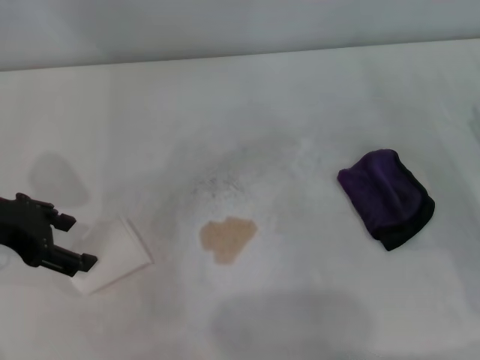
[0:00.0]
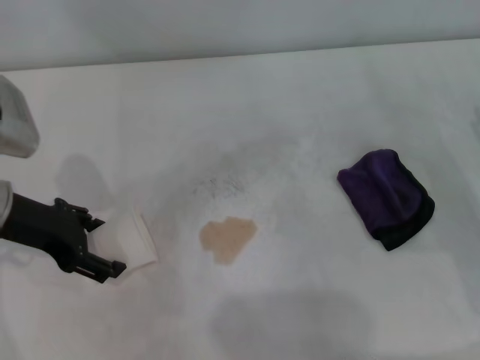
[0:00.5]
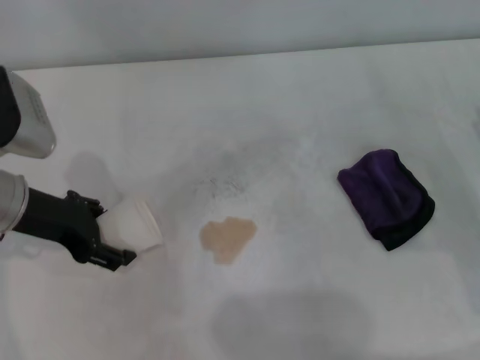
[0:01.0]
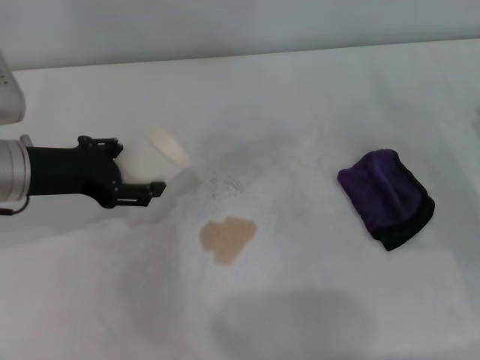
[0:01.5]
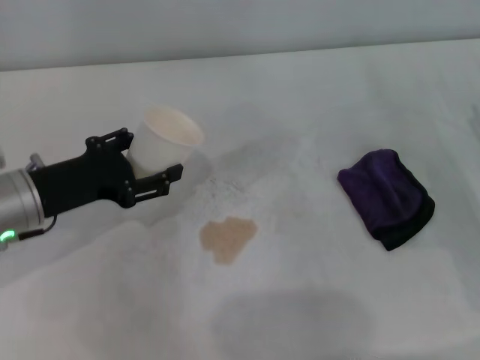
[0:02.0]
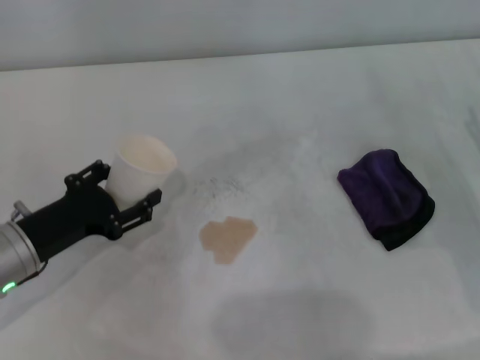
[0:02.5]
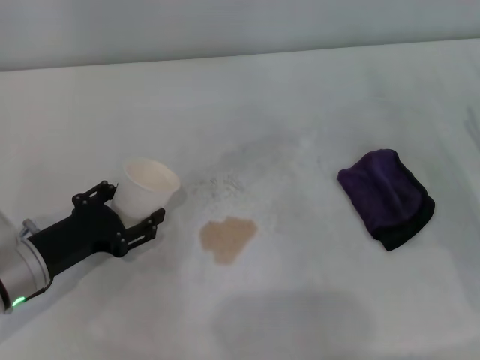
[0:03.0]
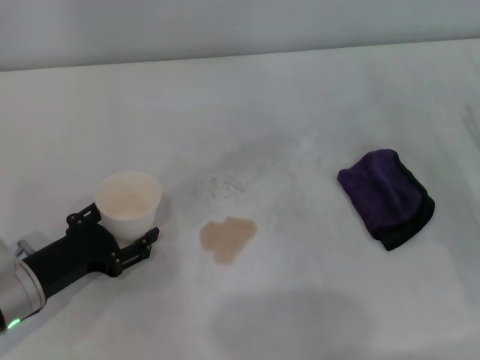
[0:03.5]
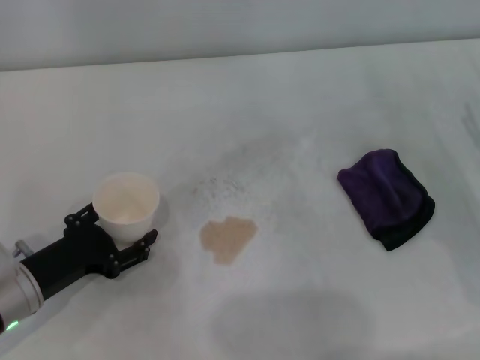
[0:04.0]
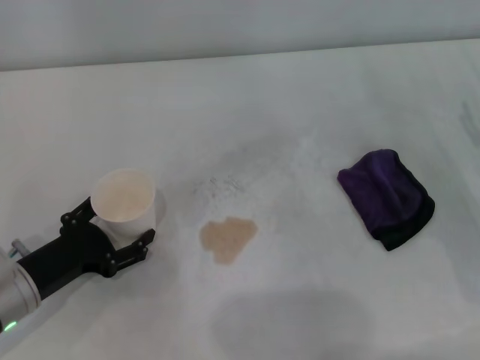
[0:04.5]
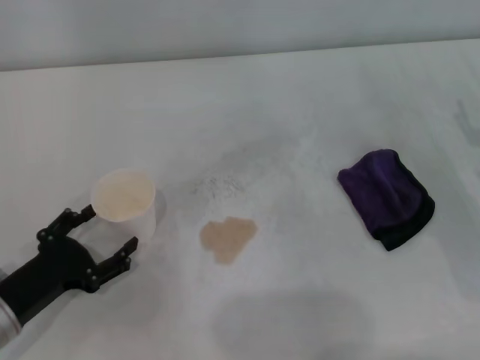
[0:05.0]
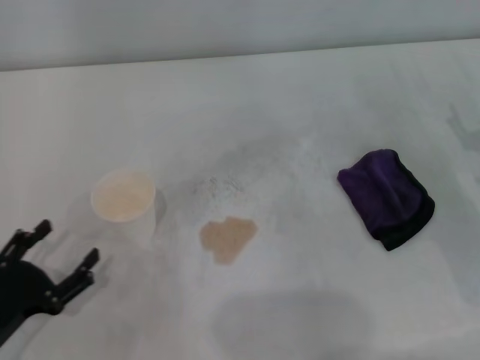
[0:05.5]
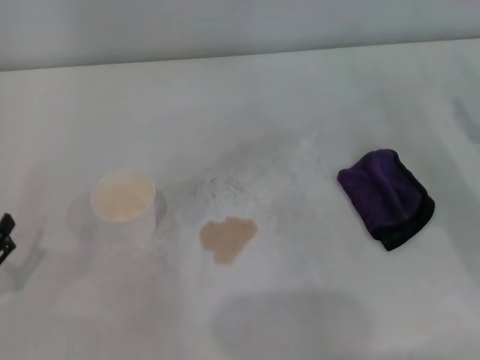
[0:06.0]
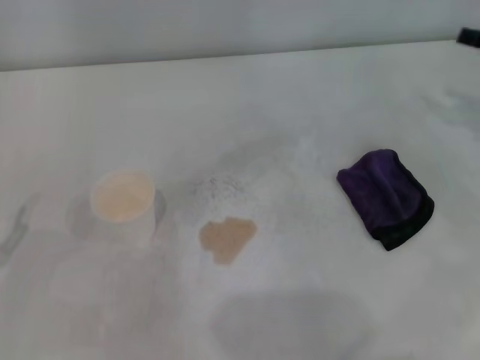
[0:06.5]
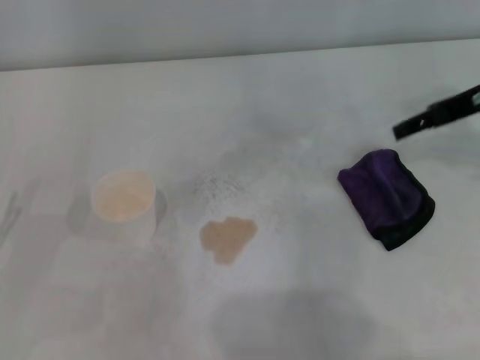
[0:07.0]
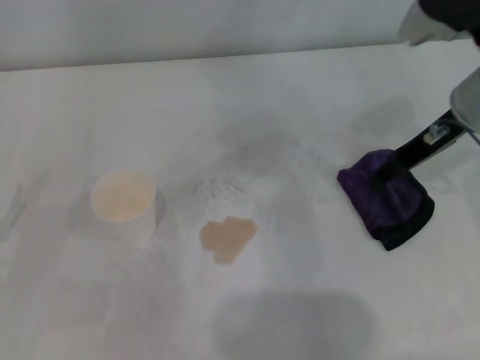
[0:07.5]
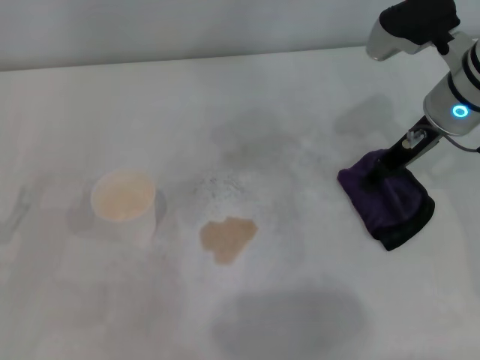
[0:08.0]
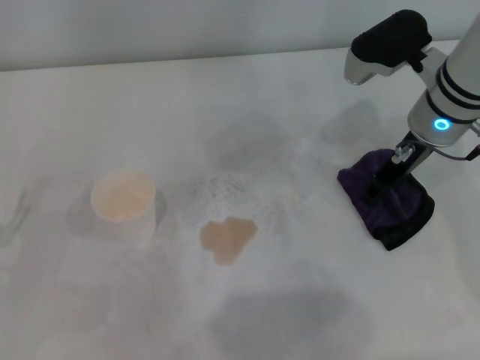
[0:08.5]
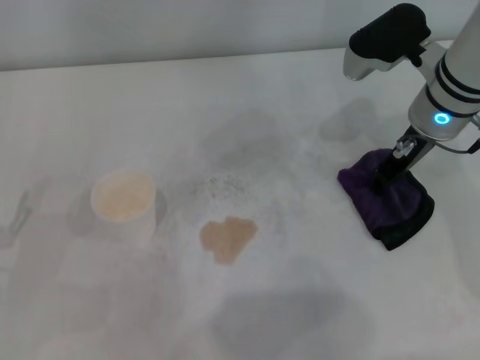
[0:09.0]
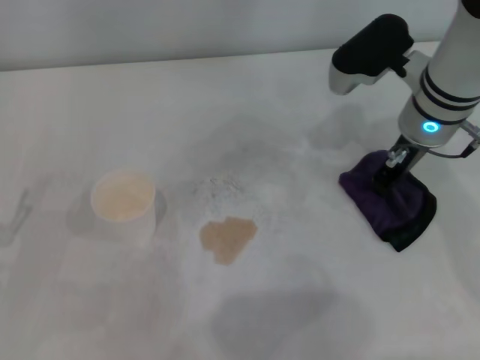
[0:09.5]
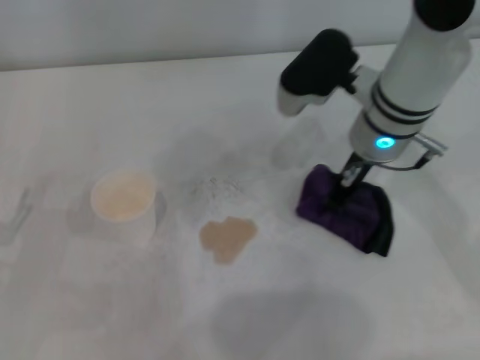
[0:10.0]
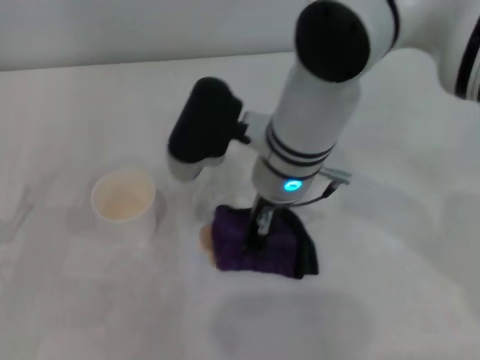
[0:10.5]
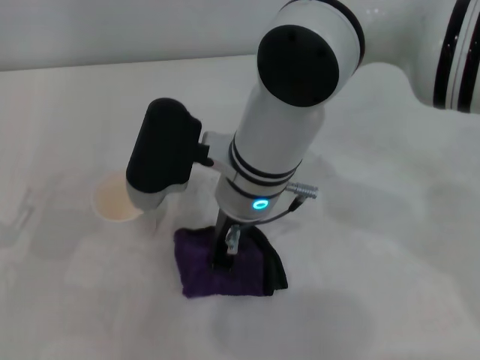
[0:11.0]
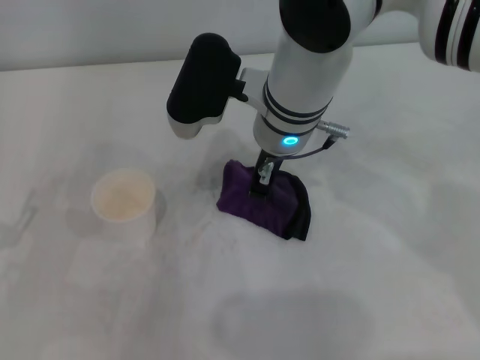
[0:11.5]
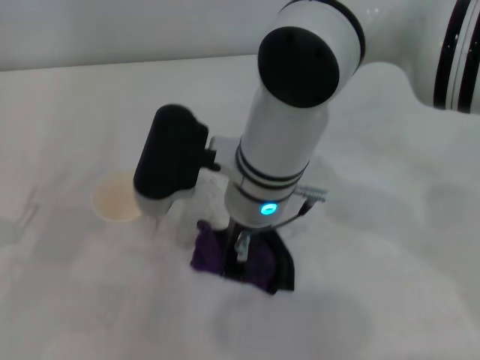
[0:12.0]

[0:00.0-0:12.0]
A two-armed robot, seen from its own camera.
Step, 0:01.0 to 0:04.0: Stand the paper cup upright with the left gripper.
Step, 0:04.5 to 0:09.0: Grasp the rag with the right gripper.
0:00.0 to 0:02.0: The left gripper moves downward, about 5 cm.
0:02.0 to 0:04.0: The left gripper shifts some 10 cm downward and backward.
0:04.0 to 0:06.0: The left gripper is displaced backward and to the left by about 10 cm.
0:06.0 to 0:08.0: The right gripper moves to the left, forward and upward, approximately 20 cm.
0:08.0 to 0:10.0: The right gripper moves to the left, some 10 cm, and closes up.
0:10.0 to 0:12.0: The right gripper heads to the left and backward, covering approximately 15 cm.

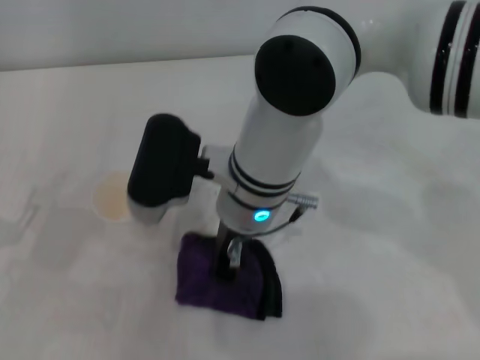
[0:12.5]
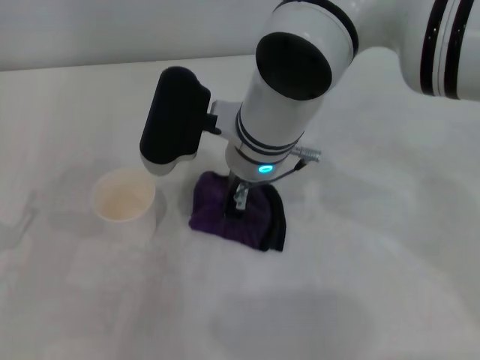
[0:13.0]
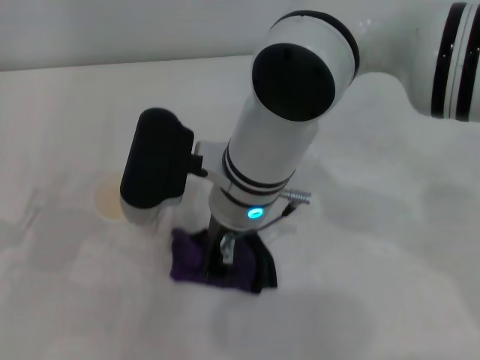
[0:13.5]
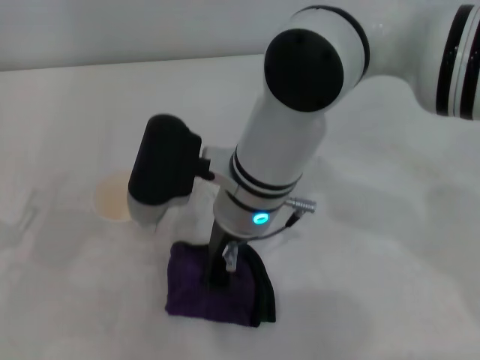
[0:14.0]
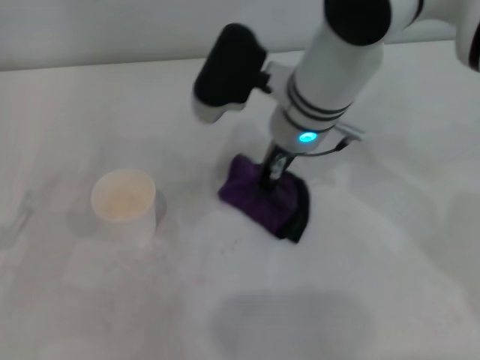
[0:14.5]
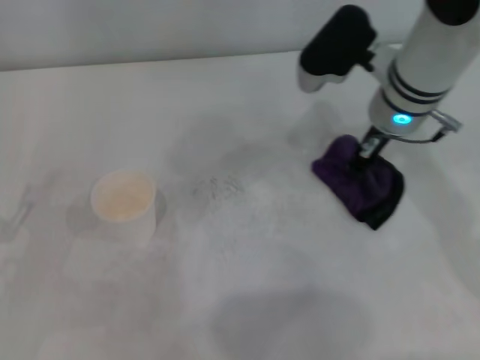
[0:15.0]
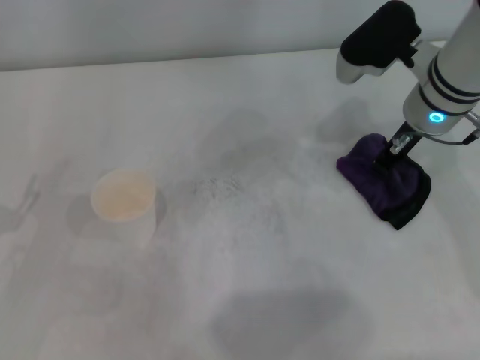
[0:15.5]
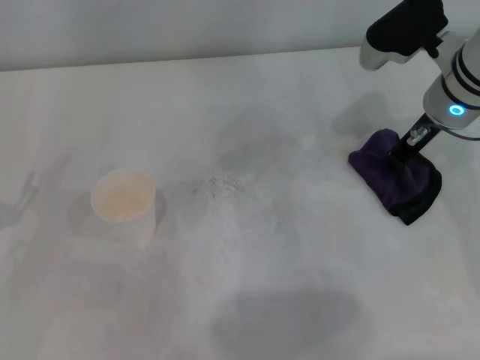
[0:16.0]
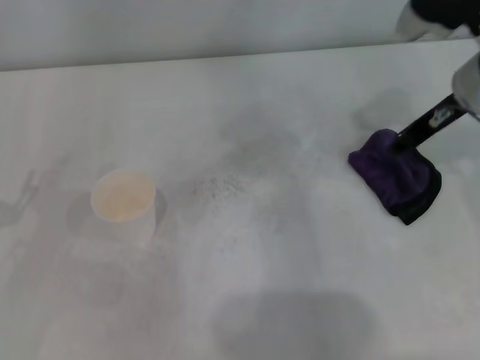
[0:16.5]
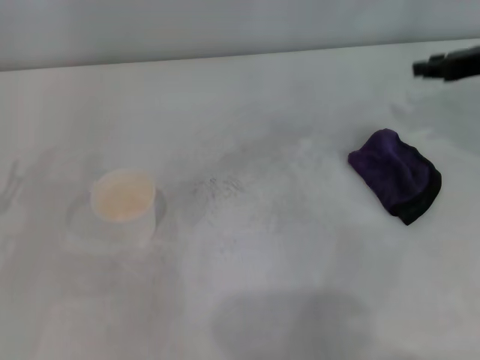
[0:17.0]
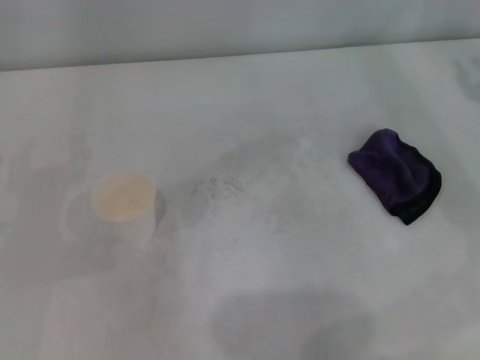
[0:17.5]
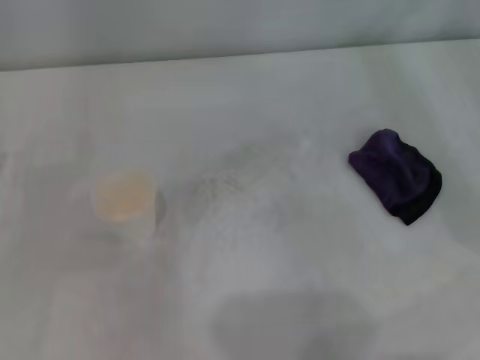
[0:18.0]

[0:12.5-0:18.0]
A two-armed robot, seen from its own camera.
Step, 0:12.5 to 0:15.0: Wipe the stains off the table with the right gripper.
Step, 0:15.5 to 0:16.0: Place the rag on the table with the right gripper.
0:12.5 to 0:14.5: The right gripper shifts approximately 10 cm forward and to the right.
0:14.5 to 0:16.0: The right gripper travels to the right by some 15 cm.
0:16.0 to 0:18.0: The right gripper moves to the right and backward, roughly 20 cm.

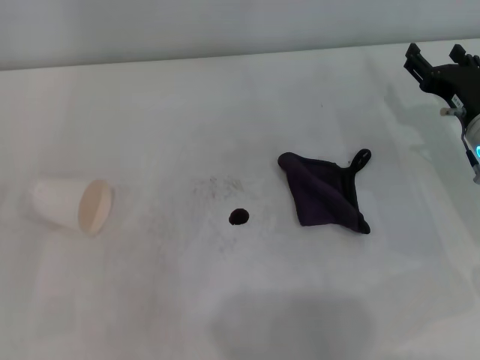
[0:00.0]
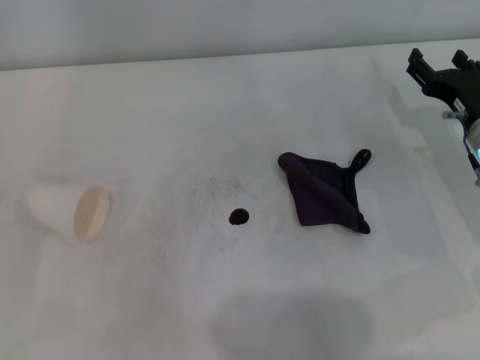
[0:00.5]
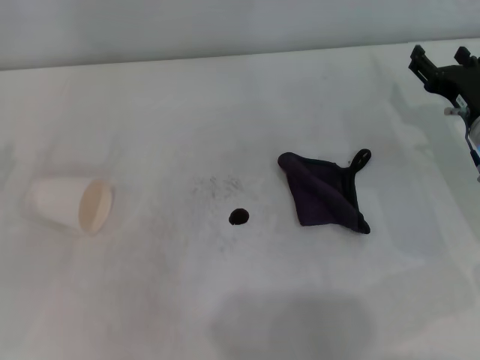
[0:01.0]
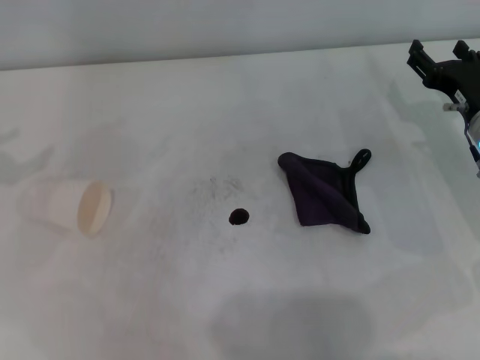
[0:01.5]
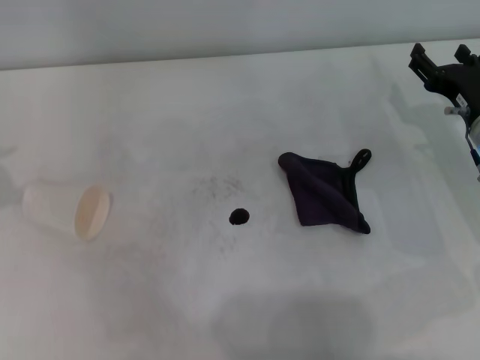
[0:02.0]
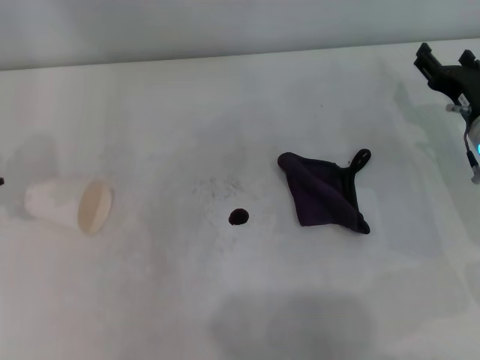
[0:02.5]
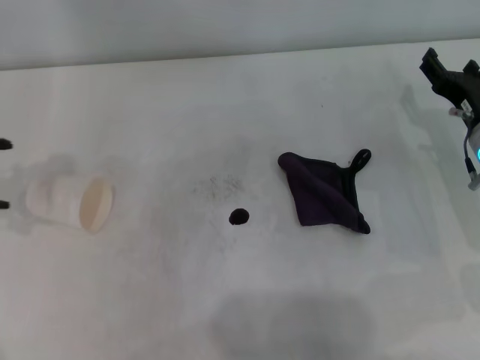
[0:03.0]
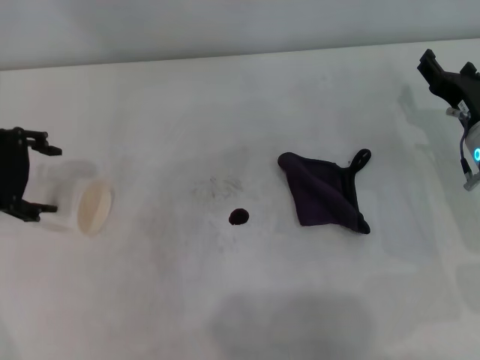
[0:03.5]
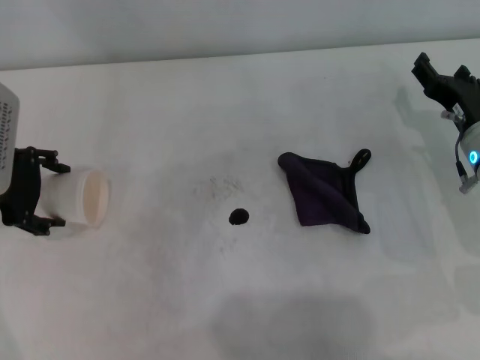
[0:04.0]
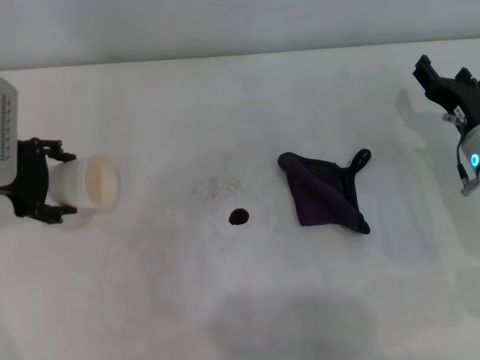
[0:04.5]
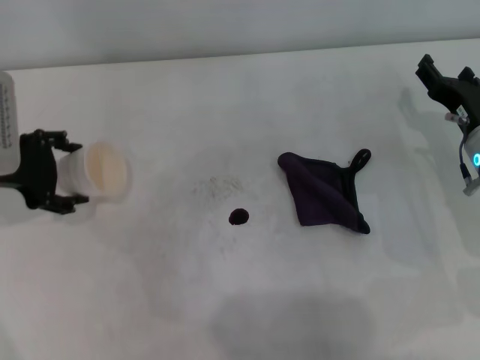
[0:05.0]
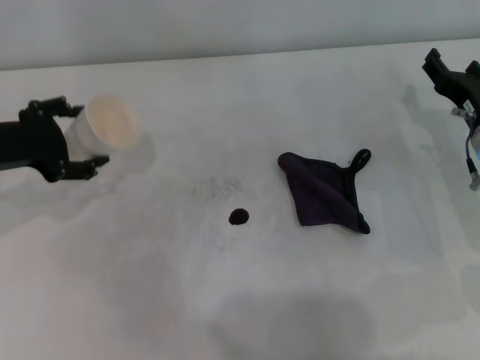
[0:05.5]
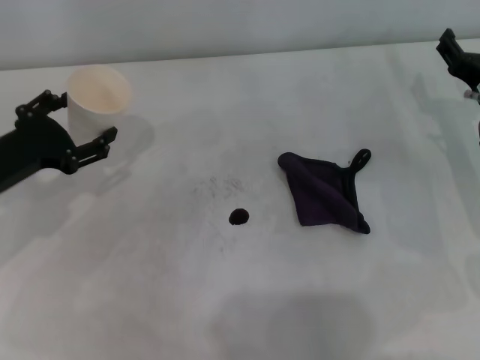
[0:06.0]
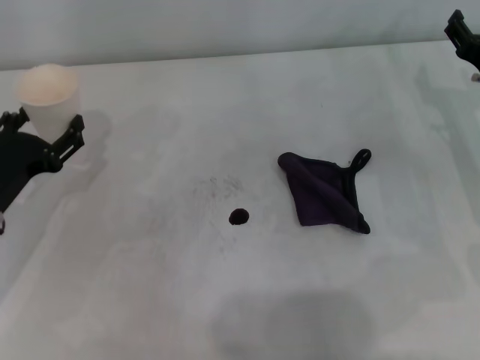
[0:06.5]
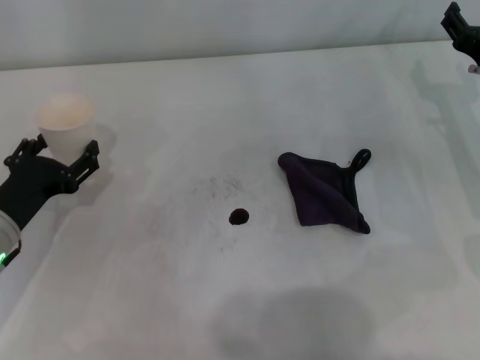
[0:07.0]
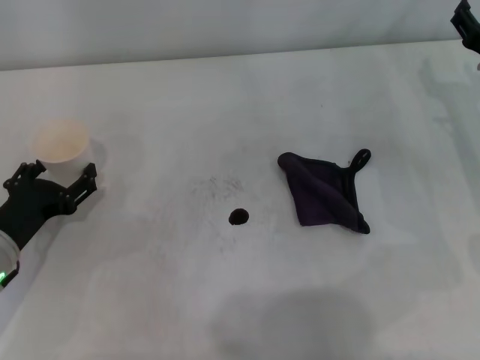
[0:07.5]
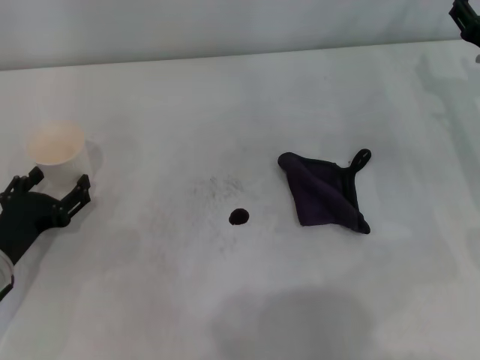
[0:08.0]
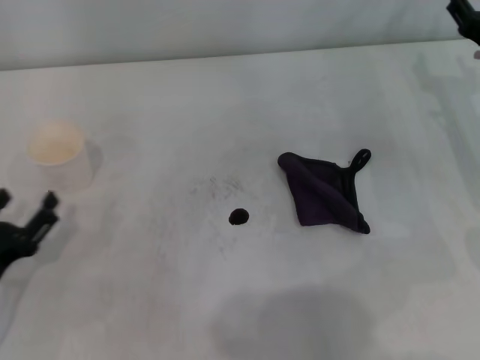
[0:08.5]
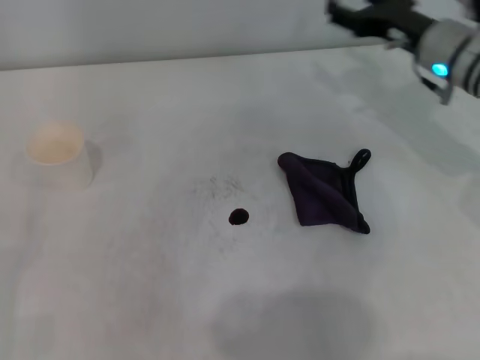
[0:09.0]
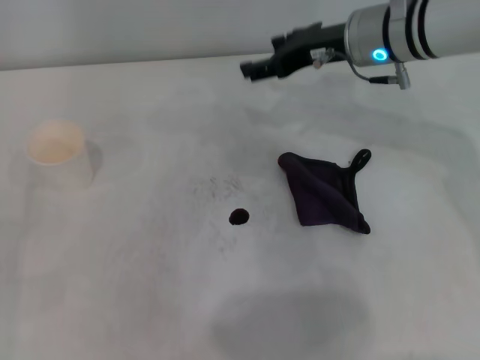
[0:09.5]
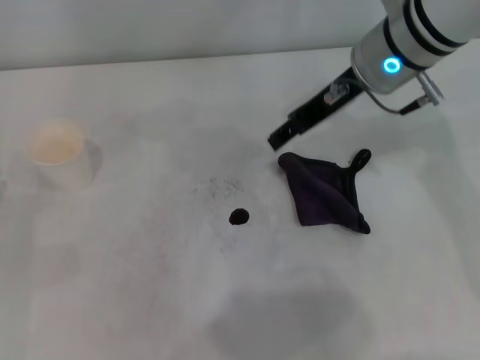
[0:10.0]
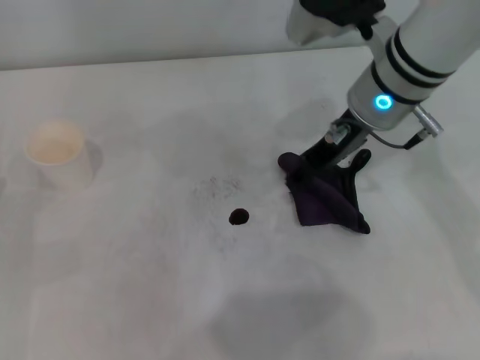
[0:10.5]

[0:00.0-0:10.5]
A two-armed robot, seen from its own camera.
Step, 0:00.0 to 0:04.0: Grasp the paper cup with the left gripper.
Step, 0:04.5 to 0:07.5: Stand the paper cup upright with the left gripper.
0:02.0 to 0:04.0: The left gripper moves to the right and downward, approximately 15 cm.
0:04.0 to 0:06.5: The left gripper travels downward and backward by roughly 10 cm.
0:06.5 to 0:08.5: The left gripper is displaced backward by some 10 cm.
0:08.5 to 0:10.5: The right gripper moves to the left and upward, about 20 cm; the left gripper moves some 5 cm.
